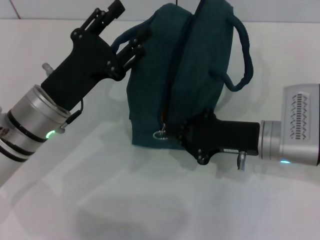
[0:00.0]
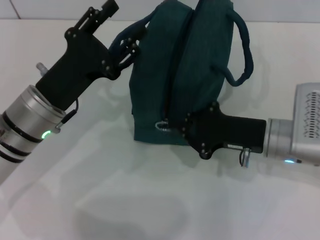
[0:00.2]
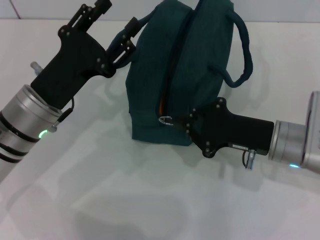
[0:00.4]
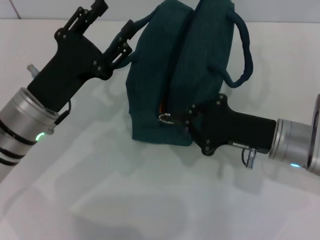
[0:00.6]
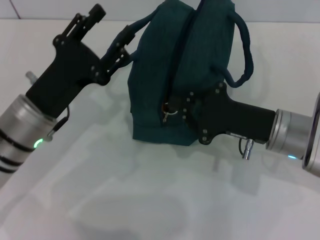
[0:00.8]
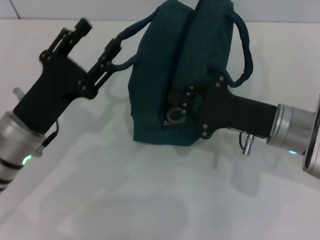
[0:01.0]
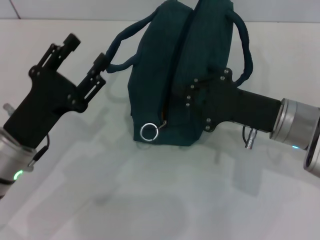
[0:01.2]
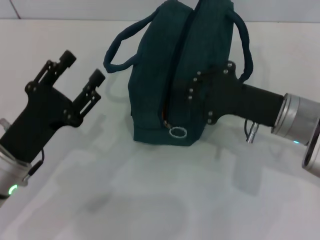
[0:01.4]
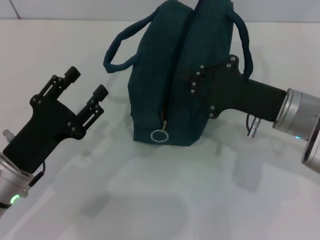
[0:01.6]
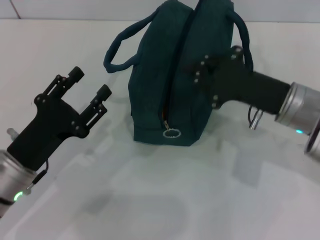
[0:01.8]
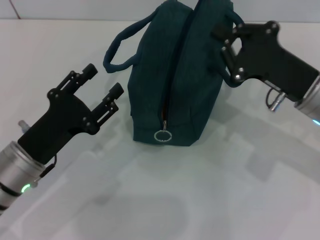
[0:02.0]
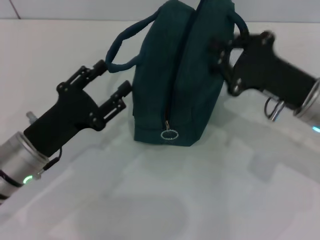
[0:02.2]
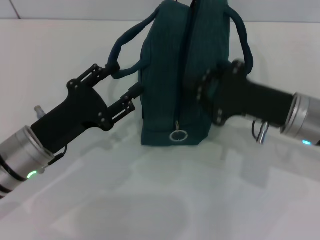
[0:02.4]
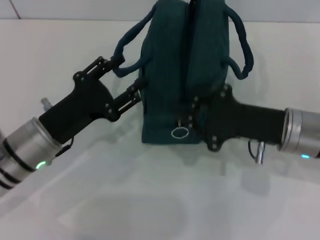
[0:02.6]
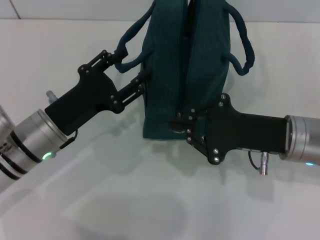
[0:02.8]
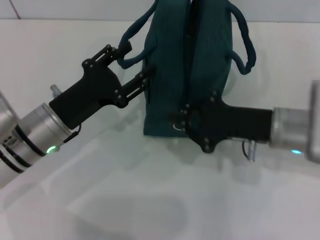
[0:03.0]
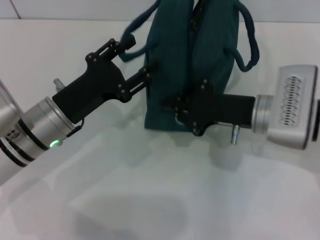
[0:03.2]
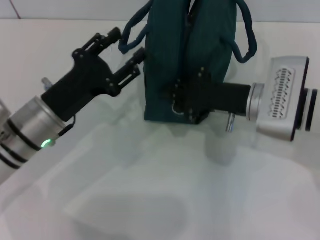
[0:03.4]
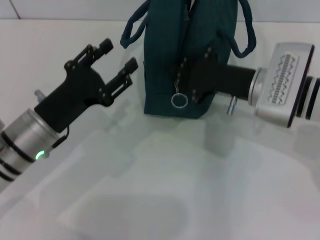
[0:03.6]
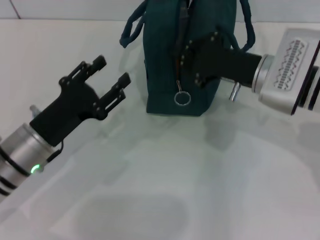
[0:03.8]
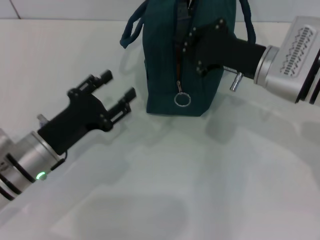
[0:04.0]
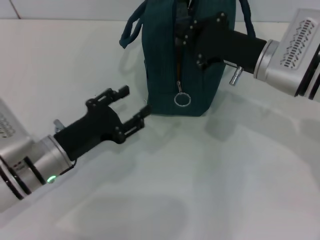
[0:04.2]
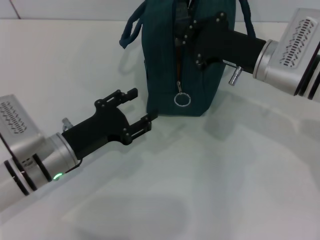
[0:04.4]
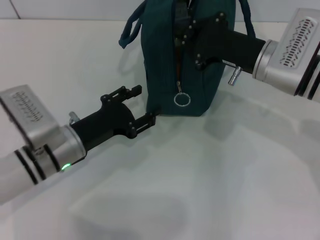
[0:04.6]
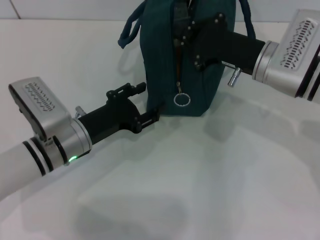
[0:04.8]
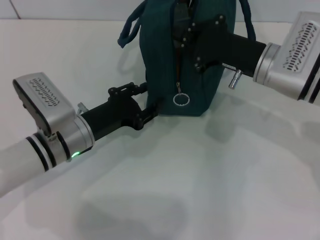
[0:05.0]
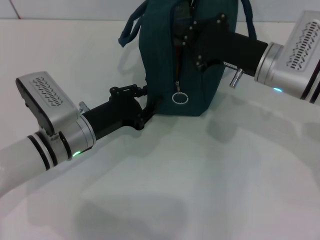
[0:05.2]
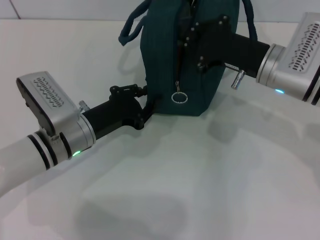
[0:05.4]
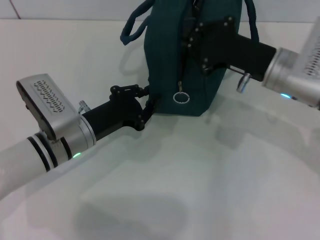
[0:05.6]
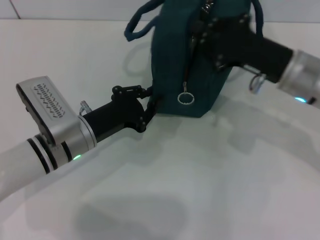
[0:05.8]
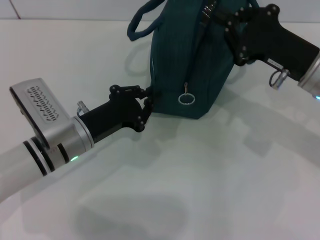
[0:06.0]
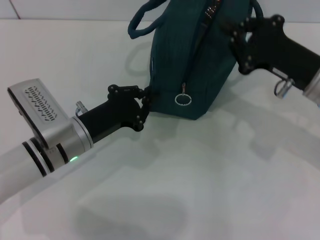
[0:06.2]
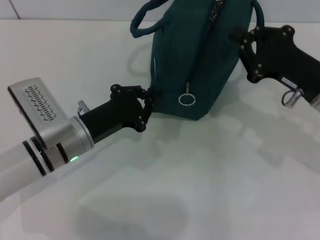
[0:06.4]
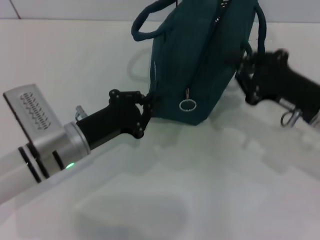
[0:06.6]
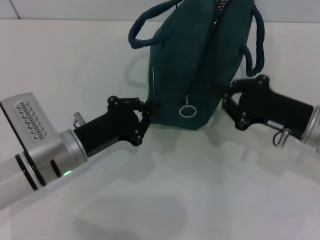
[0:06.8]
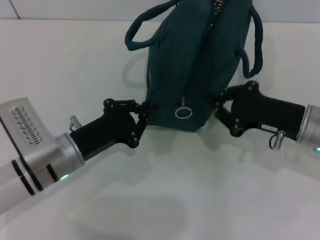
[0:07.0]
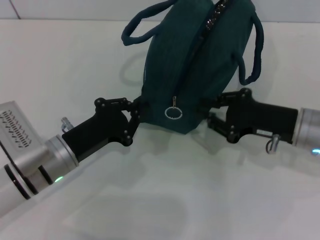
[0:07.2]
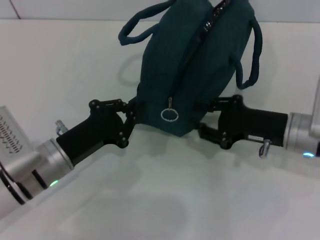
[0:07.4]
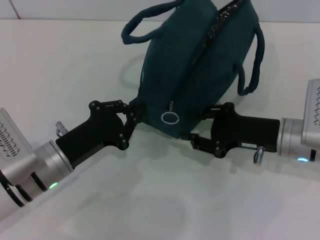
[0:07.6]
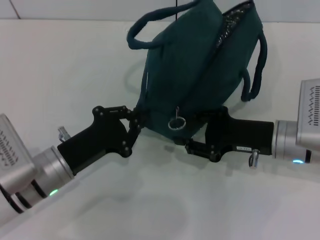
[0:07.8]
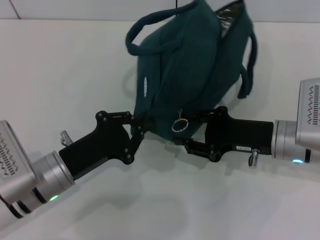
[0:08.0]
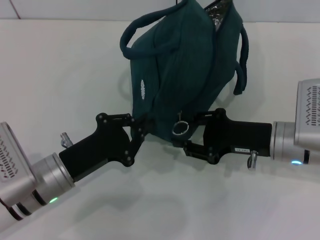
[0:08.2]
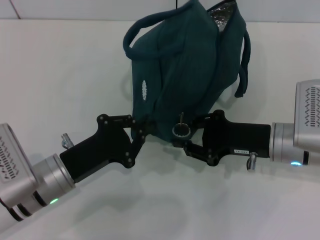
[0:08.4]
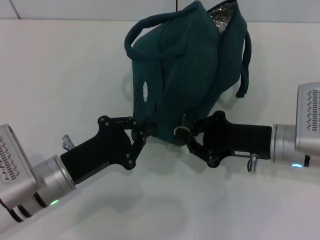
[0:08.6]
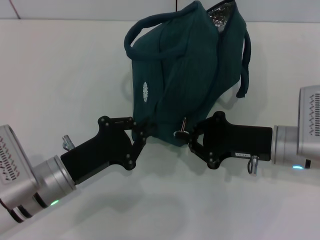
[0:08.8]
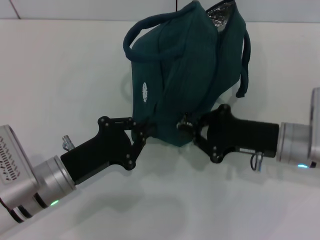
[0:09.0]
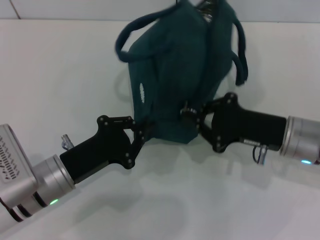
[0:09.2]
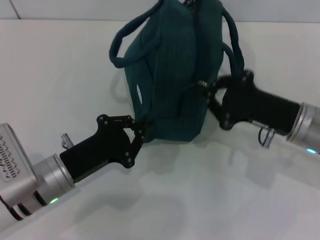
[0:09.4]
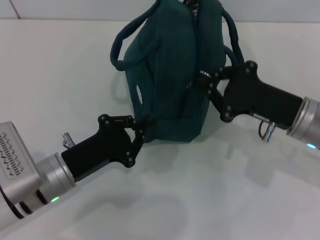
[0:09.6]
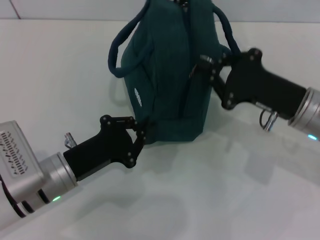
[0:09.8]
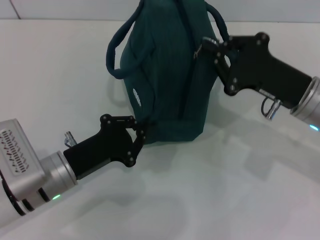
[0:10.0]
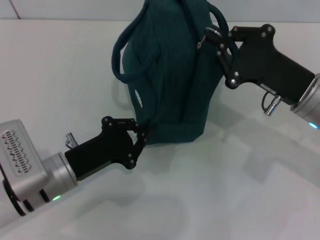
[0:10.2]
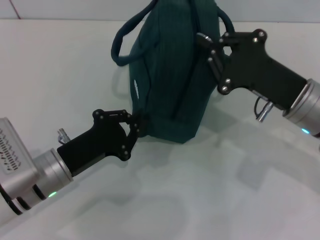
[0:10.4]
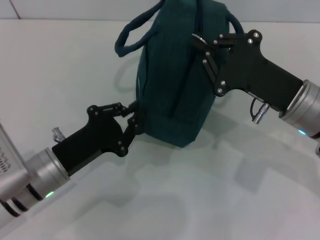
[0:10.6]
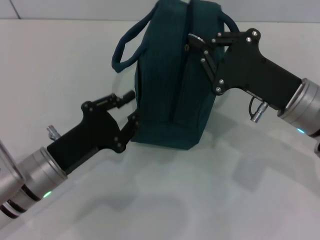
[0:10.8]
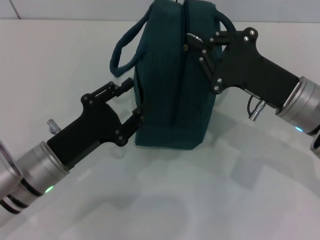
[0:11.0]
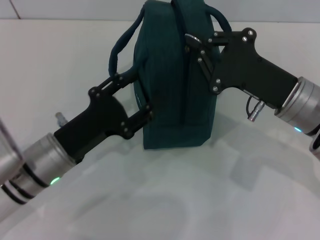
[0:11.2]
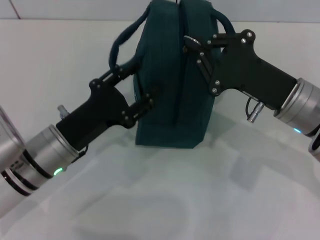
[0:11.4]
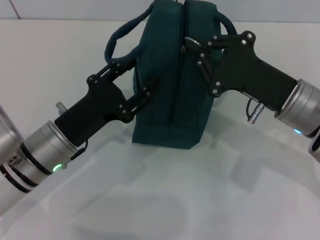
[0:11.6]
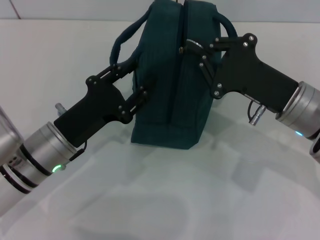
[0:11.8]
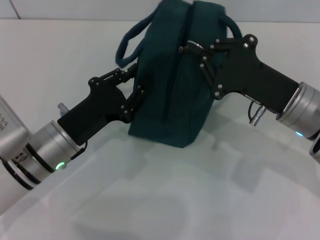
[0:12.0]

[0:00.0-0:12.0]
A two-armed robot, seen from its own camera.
0:00.0 to 0:01.6: The left gripper goes roughly 10 cm backward.
0:01.6 to 0:03.0: The left gripper shifts about 5 cm forward.
0:03.0 to 0:04.4: The right gripper is displaced forward by approximately 5 cm.
0:04.4 to 0:06.0: The left gripper closes its fingers. Meanwhile the right gripper is displaced to the right by roughly 5 cm.
0:06.0 to 0:07.6: The left gripper shifts by roughly 5 cm; the right gripper travels downward by roughly 5 cm, and opens its fingers.
0:07.6 to 0:09.0: The right gripper closes up.
0:10.4 to 0:12.0: The left gripper opens its fingers.

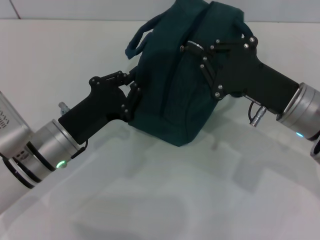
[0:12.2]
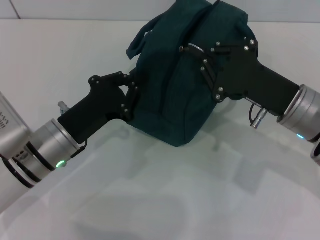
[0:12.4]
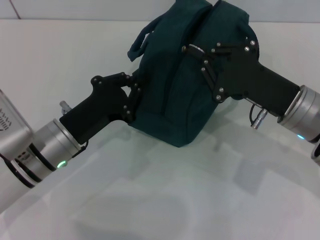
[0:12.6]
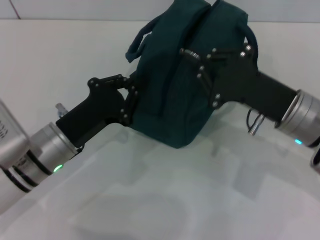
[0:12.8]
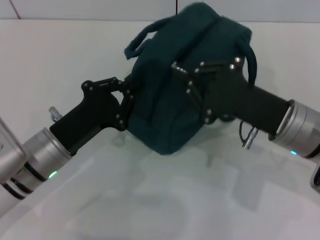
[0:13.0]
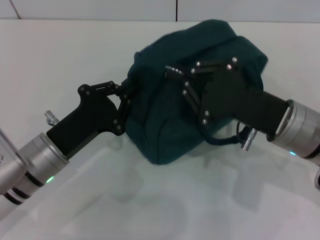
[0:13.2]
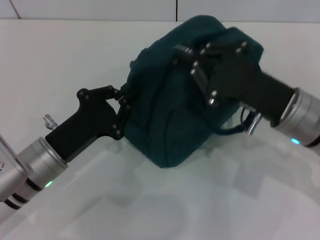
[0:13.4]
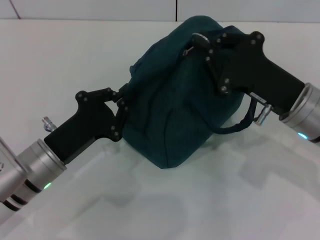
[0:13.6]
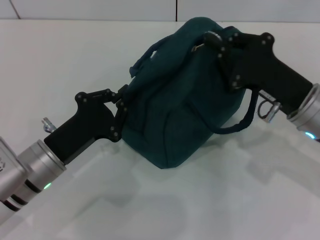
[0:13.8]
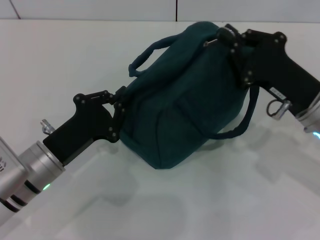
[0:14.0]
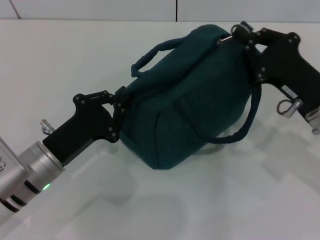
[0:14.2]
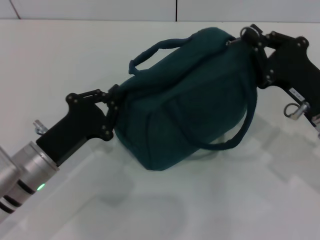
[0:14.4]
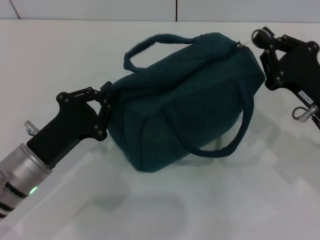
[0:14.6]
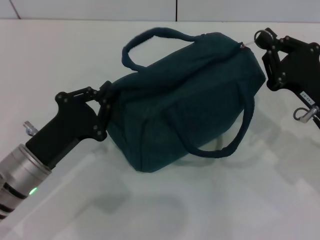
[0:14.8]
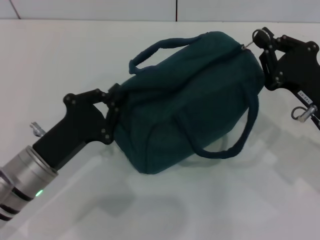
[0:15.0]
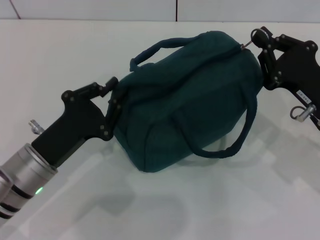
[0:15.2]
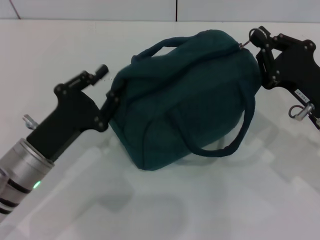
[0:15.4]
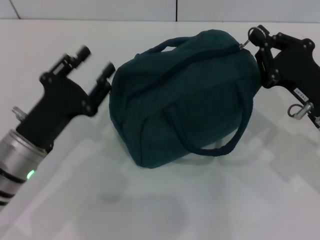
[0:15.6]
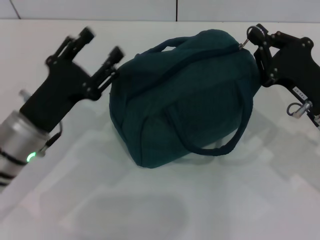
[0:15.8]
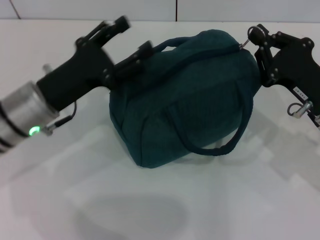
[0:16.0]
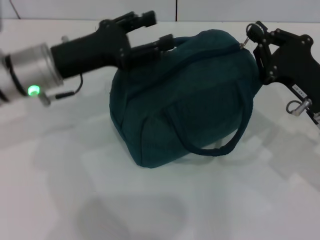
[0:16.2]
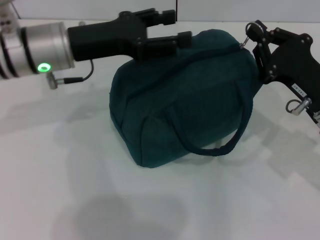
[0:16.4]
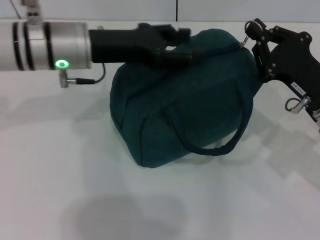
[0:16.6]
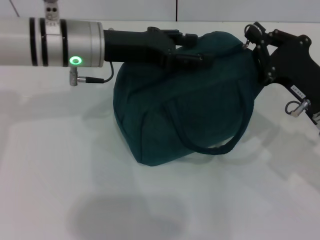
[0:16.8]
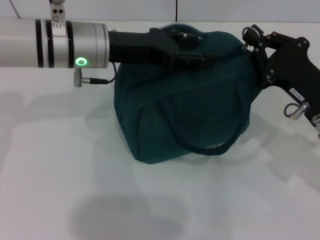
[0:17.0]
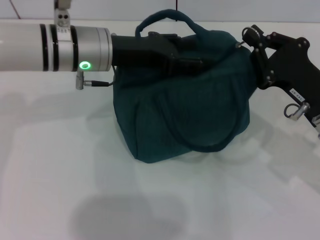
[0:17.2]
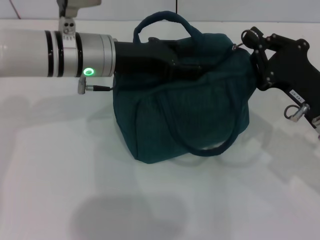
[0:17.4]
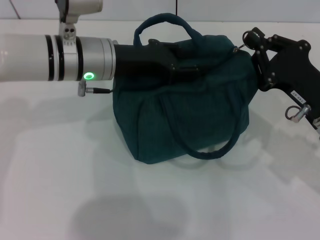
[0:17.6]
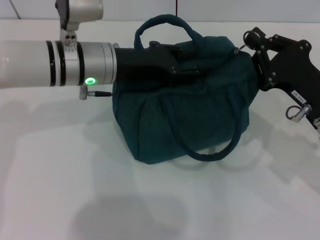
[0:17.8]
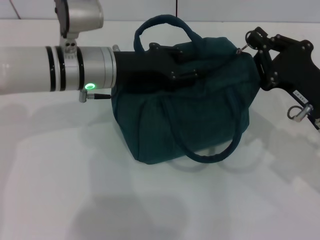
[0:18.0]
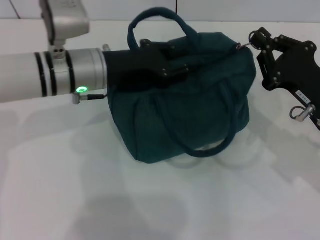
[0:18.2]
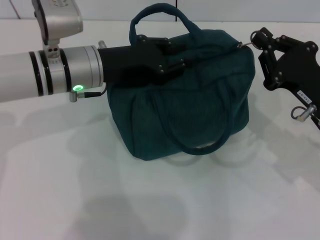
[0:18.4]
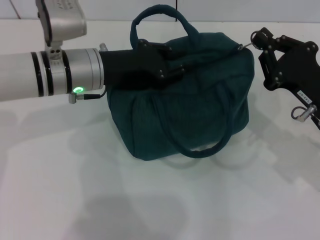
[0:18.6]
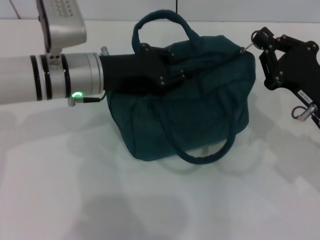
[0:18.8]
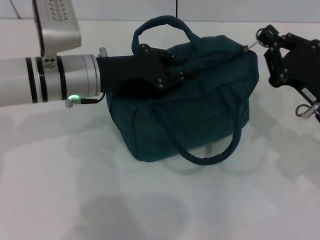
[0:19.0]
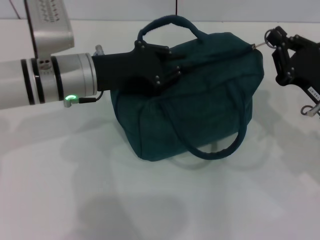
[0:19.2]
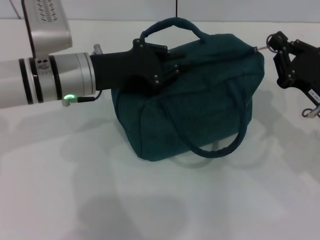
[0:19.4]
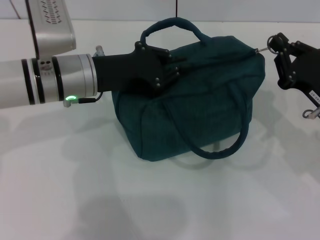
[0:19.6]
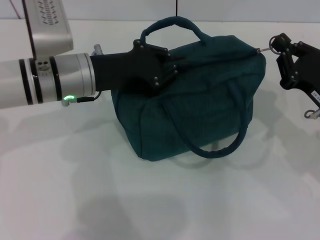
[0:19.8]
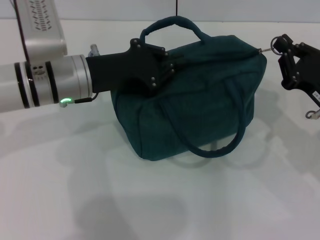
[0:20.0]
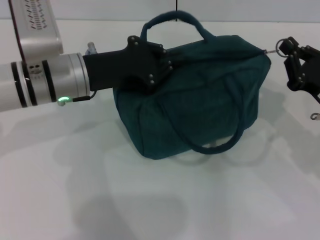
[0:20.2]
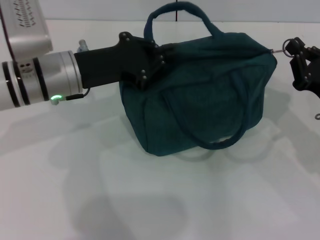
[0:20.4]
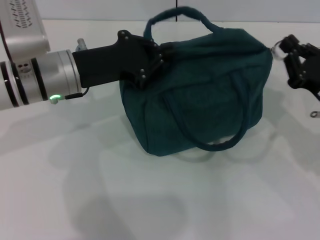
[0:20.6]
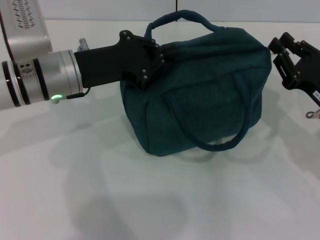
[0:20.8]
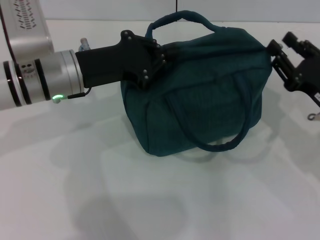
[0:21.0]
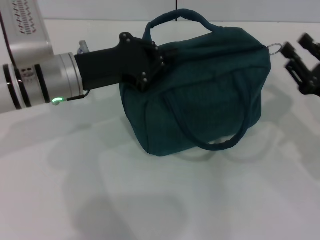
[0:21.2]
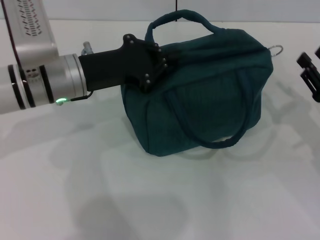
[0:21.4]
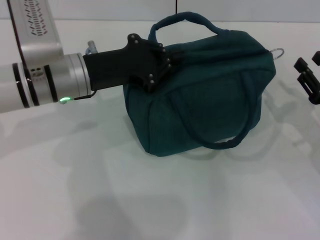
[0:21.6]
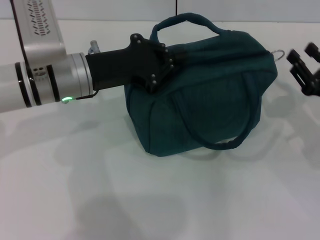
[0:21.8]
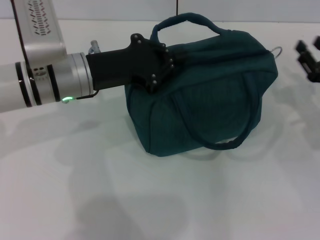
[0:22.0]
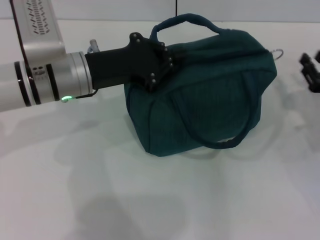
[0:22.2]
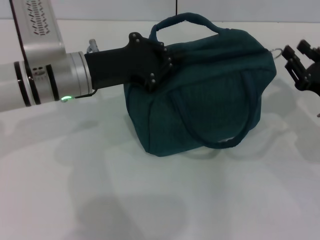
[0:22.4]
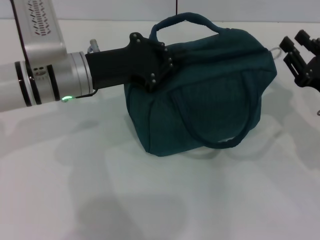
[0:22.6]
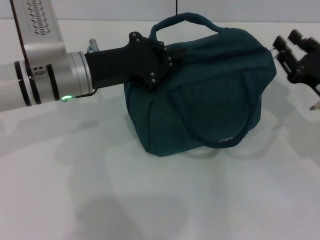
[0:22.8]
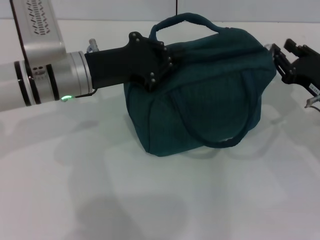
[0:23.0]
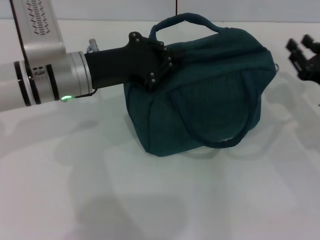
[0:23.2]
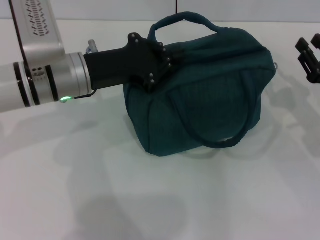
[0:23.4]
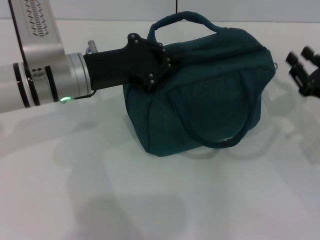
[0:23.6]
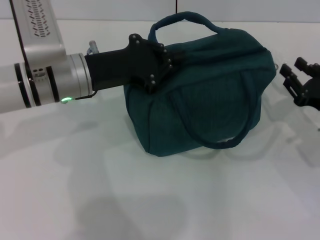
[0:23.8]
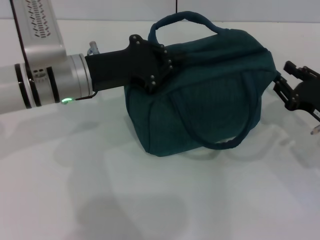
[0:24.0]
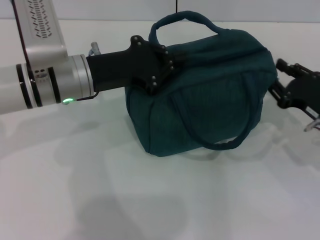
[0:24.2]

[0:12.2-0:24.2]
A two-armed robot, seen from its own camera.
0:13.8 to 0:15.2: There are only small adjustments of the grippers.
0:15.2 to 0:16.6: The left gripper goes approximately 20 cm forward and upward, and opens its fingers.
0:16.6 to 0:18.2: The left gripper closes its fingers.
0:18.2 to 0:19.8: The left gripper closes its fingers.
0:19.8 to 0:21.2: The right gripper opens up.
0:22.6 to 0:24.2: There are only small adjustments of the grippers.
